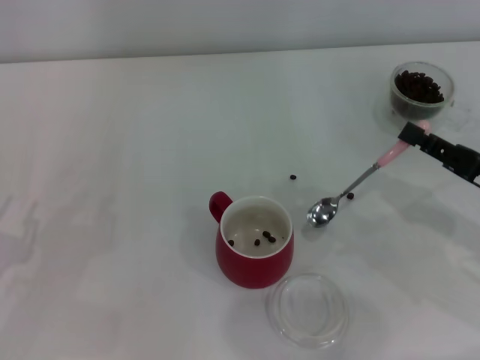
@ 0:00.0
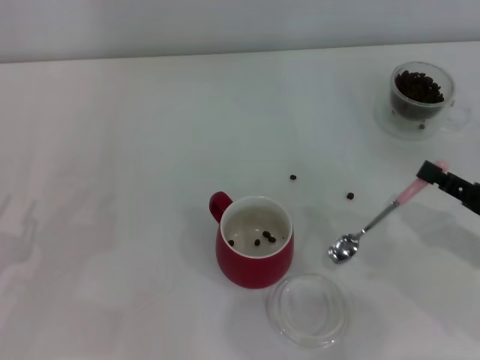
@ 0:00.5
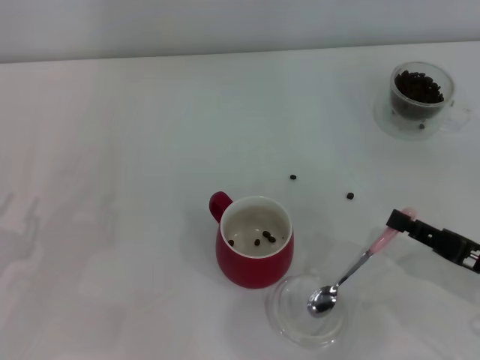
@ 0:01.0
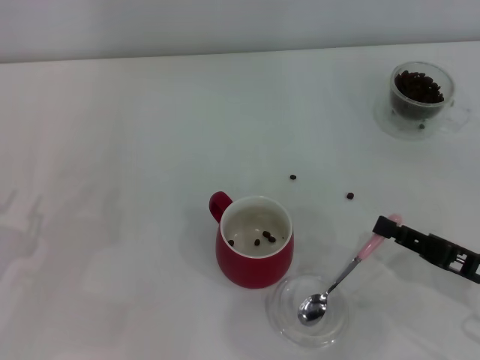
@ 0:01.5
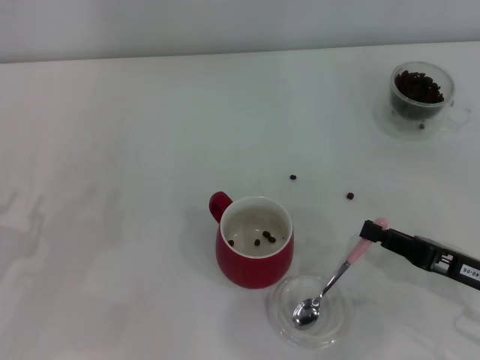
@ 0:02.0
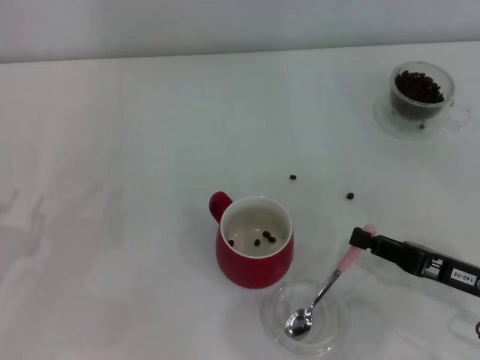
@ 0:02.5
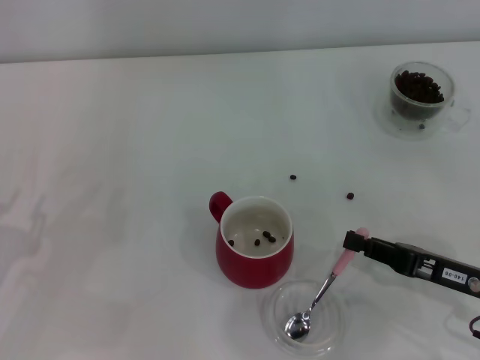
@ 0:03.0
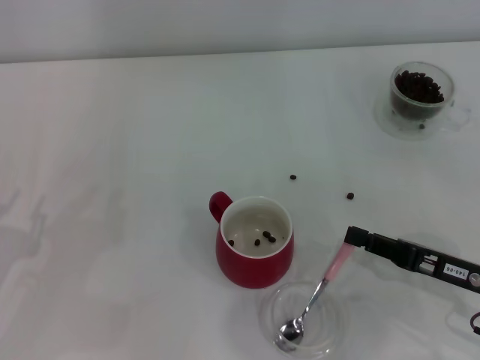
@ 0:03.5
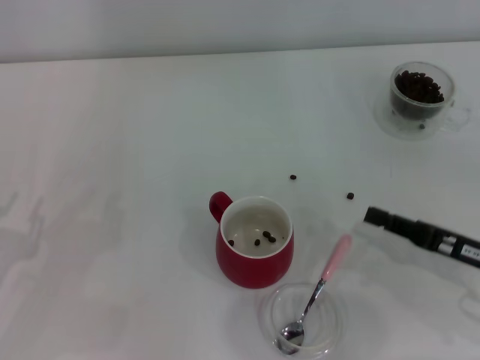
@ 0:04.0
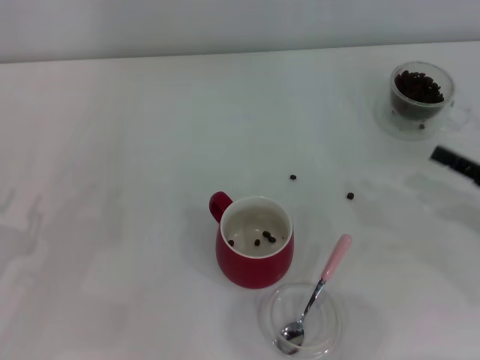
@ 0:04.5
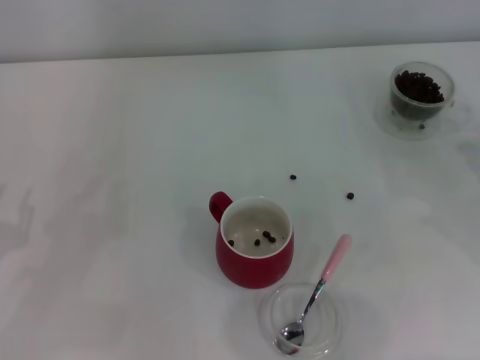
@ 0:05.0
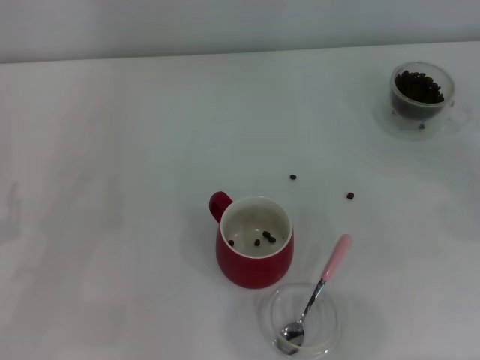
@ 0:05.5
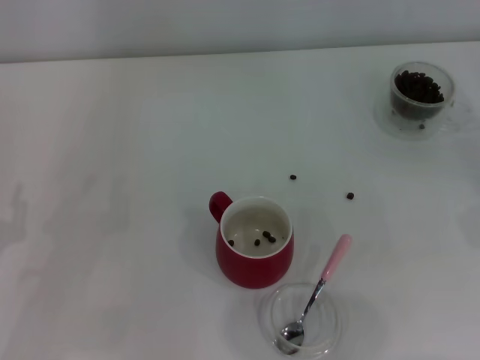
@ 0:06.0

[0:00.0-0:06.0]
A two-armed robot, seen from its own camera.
Task of the whole recording: Use a pink spoon to take out the coffee beans from the glass and pour them into the red cup.
Step, 0:00.0 to 0:04.0: Place the spoon back in its original place with the right gripper.
0:00.0 to 0:02.0: The right gripper shifts by roughly 5 cm.
0:02.0 to 0:04.0: There are only small adjustments of the grippers.
0:04.0 to 0:06.0: The right gripper is displaced to the right and upward by approximately 15 cm.
